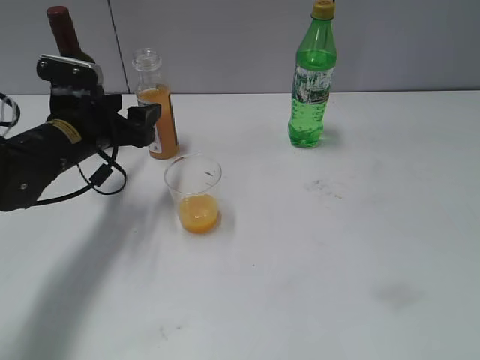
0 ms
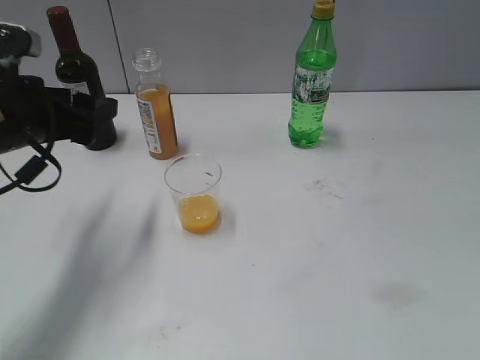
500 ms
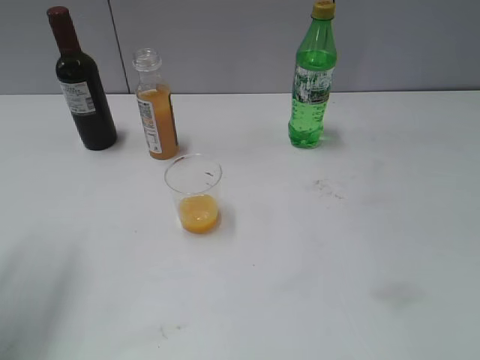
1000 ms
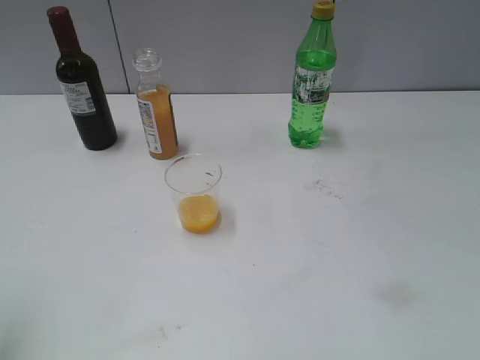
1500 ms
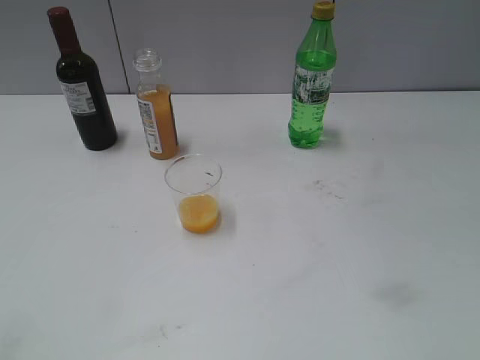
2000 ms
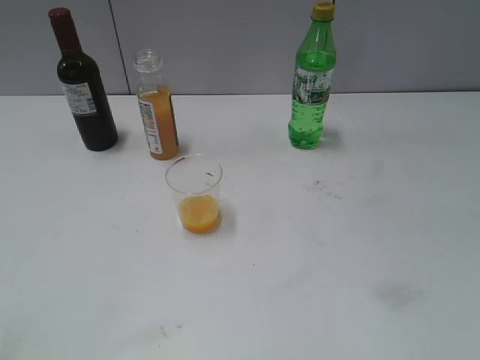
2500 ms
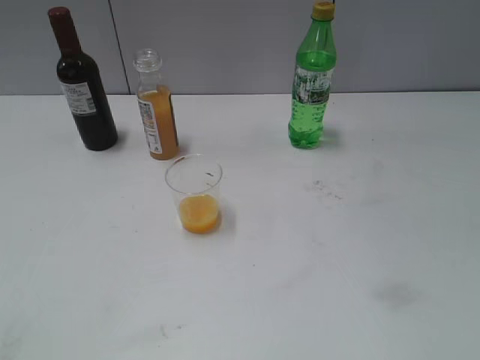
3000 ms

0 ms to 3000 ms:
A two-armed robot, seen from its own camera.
0 ms to 1500 ms: The left gripper travels upward, backward and to the left by about 35 cm.
